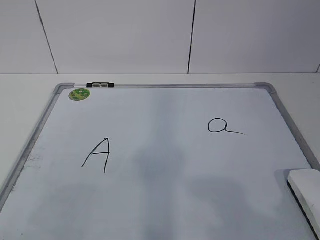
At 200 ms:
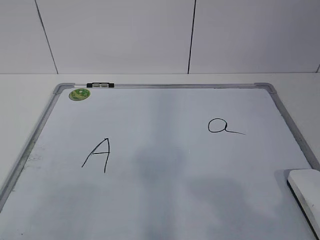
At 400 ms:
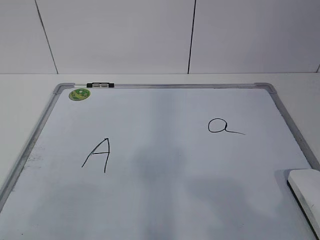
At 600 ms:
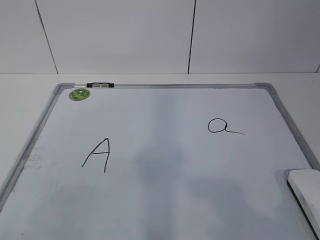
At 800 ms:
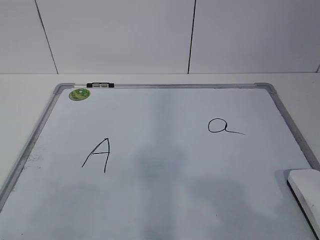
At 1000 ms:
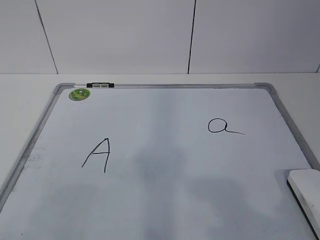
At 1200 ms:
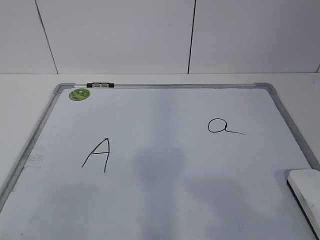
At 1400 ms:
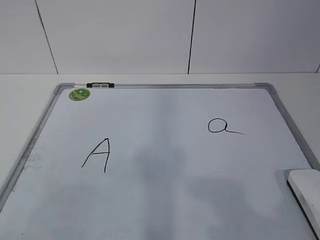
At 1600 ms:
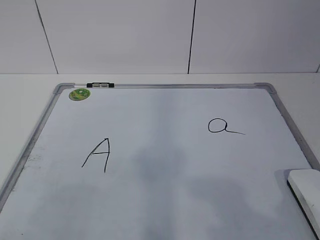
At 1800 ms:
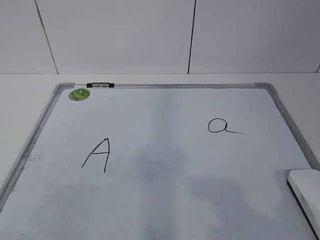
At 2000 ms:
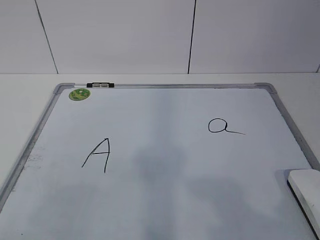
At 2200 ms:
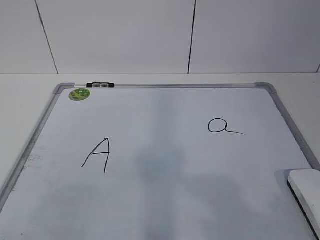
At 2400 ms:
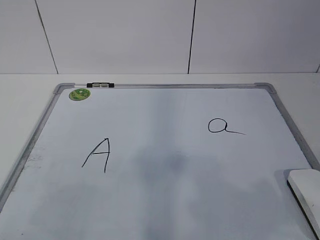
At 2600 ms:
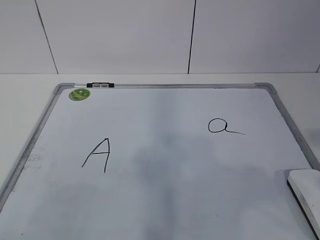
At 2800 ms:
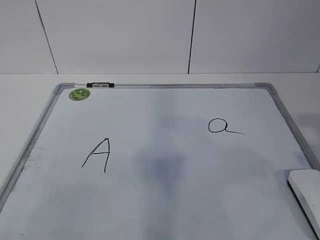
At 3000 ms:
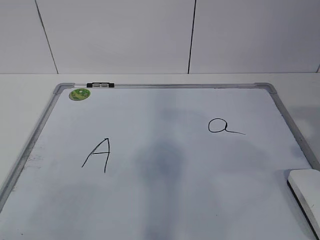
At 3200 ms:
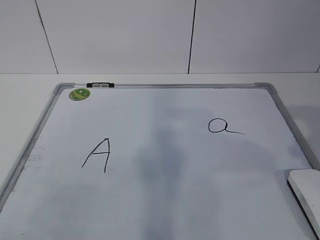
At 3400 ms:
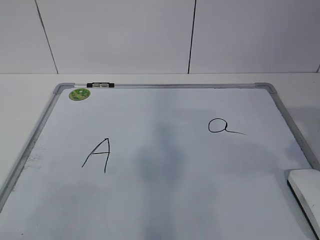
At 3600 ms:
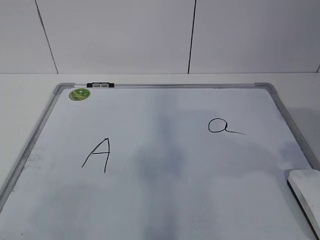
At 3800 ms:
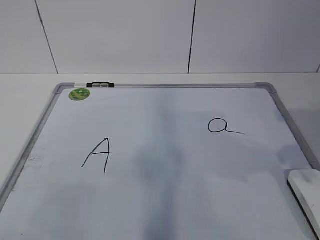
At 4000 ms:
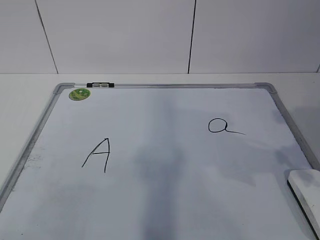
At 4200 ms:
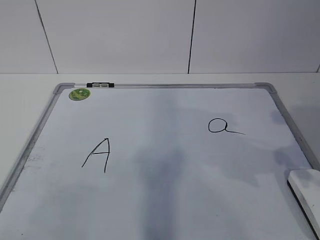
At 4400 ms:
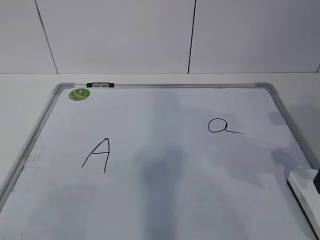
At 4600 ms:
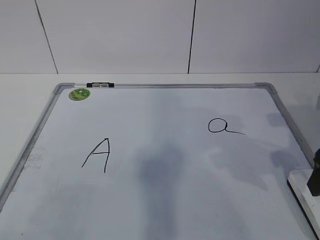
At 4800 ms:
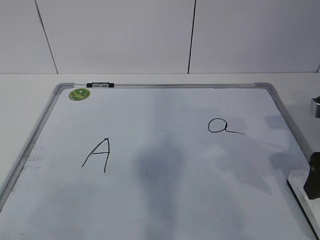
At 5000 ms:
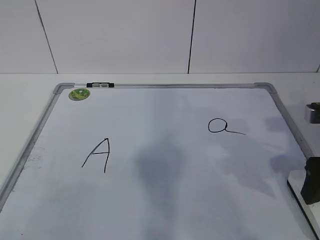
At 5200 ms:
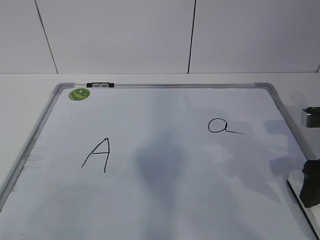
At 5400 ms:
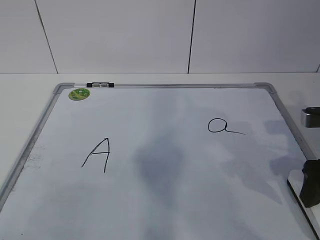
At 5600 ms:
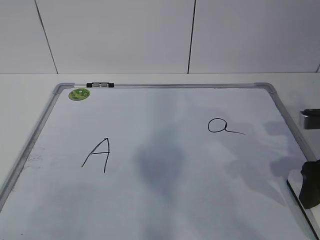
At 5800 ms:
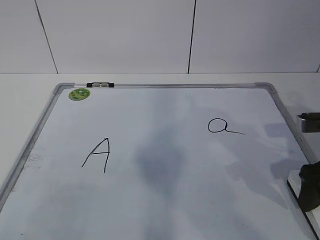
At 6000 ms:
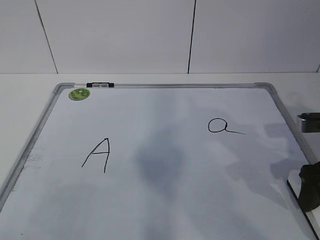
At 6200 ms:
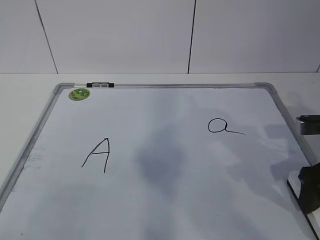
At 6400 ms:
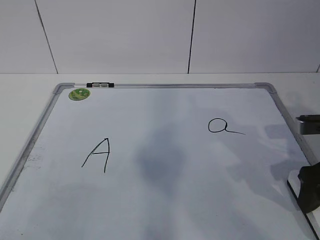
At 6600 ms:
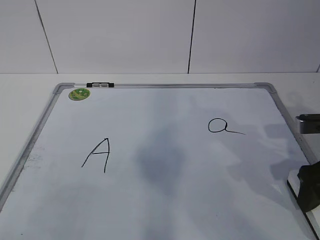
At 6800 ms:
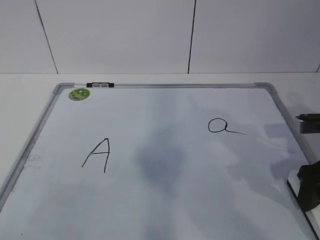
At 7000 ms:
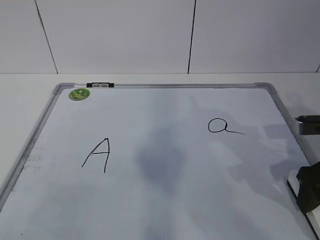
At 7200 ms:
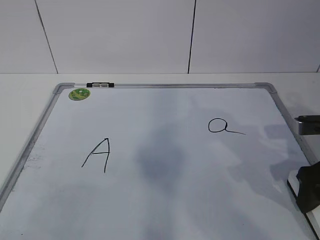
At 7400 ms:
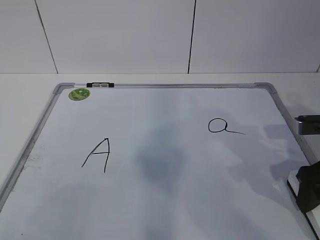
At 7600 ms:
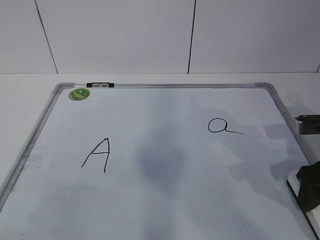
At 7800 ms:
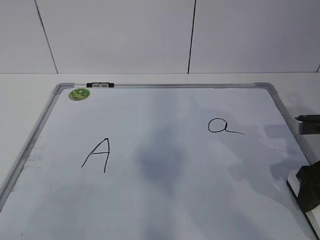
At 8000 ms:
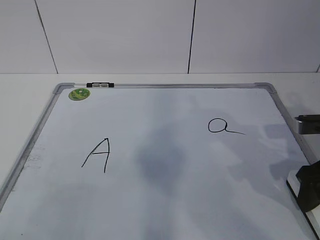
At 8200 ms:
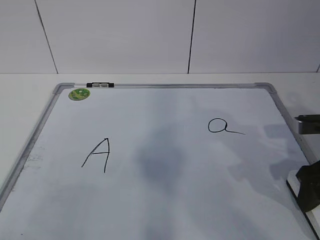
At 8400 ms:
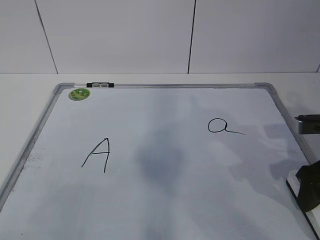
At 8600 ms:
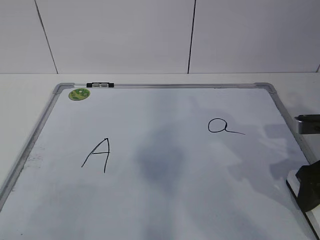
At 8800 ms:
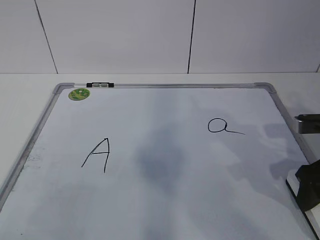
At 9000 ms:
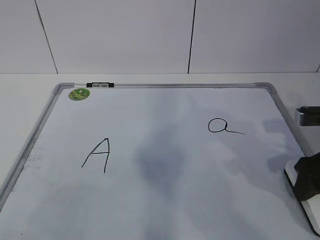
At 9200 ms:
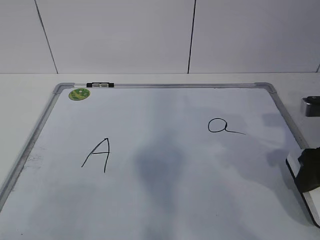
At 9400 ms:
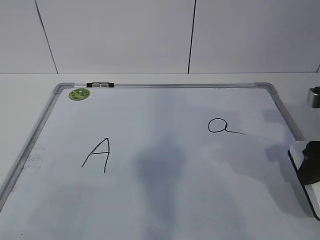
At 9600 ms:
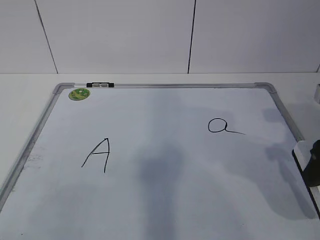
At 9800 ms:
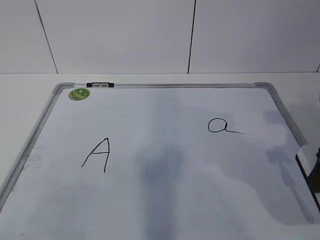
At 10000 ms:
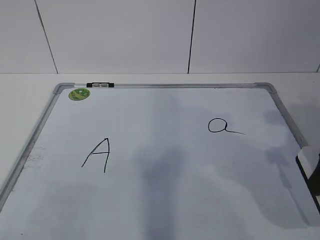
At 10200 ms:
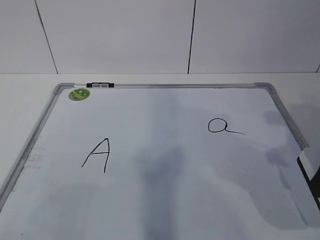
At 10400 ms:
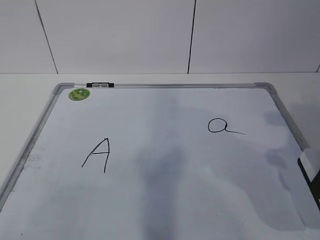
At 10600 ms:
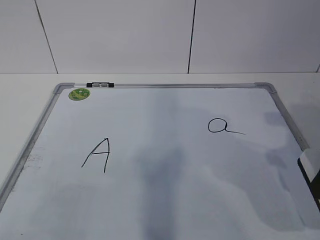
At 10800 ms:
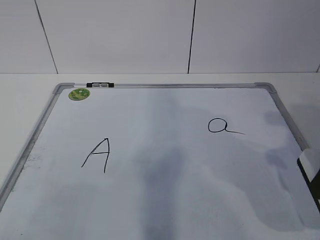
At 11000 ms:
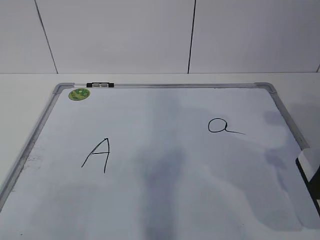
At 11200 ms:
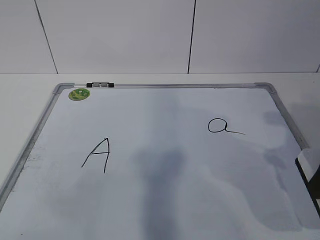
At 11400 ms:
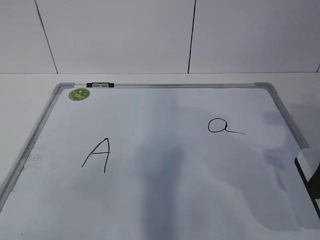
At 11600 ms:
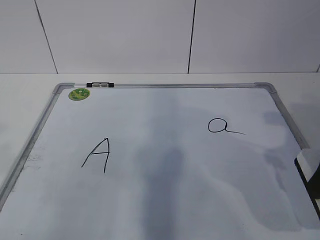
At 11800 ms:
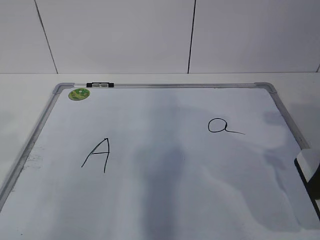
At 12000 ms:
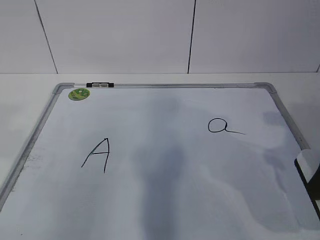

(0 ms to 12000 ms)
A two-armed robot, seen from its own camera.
Task of the whole recording: pick up the eraser on the blackboard and erase the letter "a".
3000 ms - 4400 ms: The right gripper shifts approximately 15 cm forward and downward.
4400 ms - 6000 ms: The right gripper heads downward, covering approximately 5 cm.
6000 ms - 7600 ms: Both grippers stay put.
7600 ms - 9000 ms: The grippers stay close to where they were, moving slightly.
9000 ms - 10400 ms: The right gripper shifts roughly 5 cm upward.

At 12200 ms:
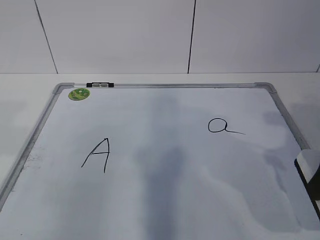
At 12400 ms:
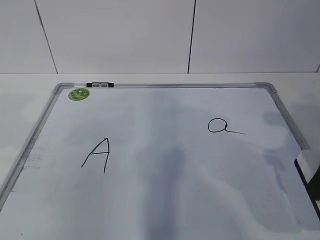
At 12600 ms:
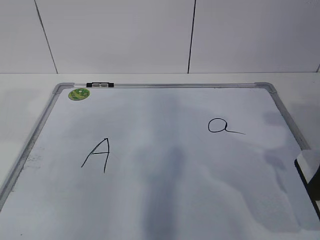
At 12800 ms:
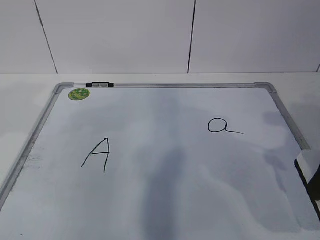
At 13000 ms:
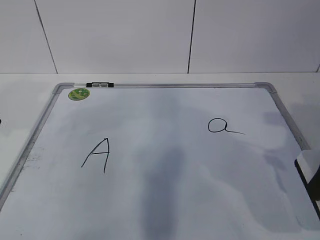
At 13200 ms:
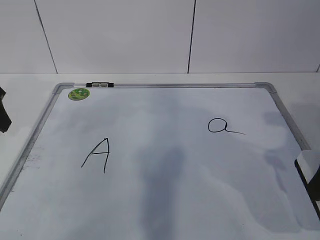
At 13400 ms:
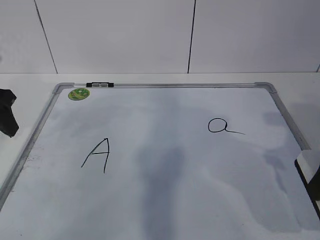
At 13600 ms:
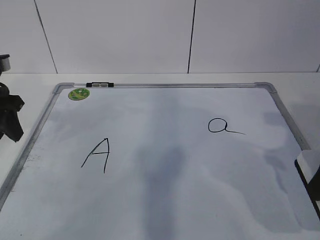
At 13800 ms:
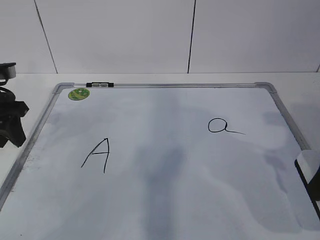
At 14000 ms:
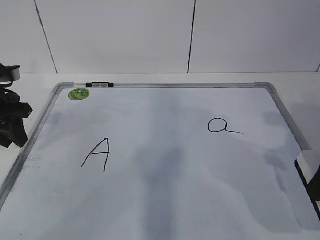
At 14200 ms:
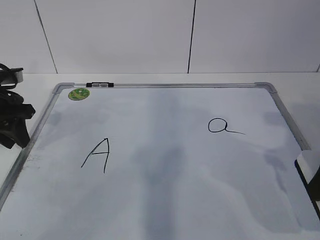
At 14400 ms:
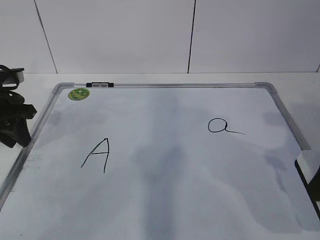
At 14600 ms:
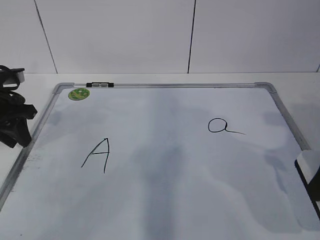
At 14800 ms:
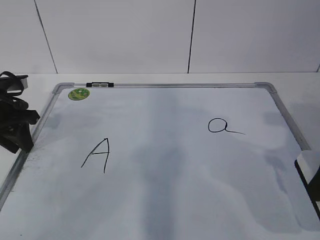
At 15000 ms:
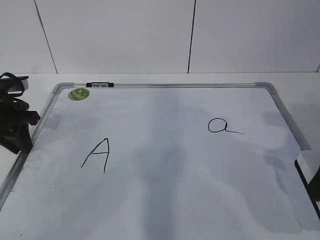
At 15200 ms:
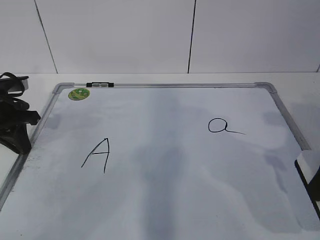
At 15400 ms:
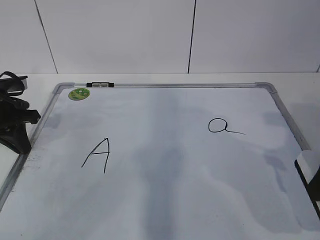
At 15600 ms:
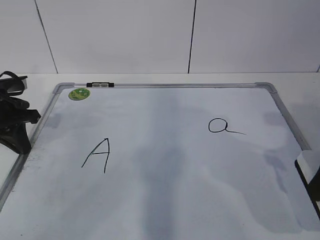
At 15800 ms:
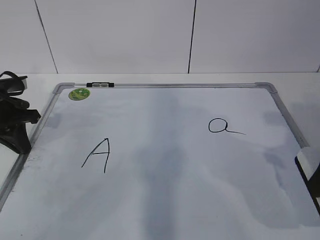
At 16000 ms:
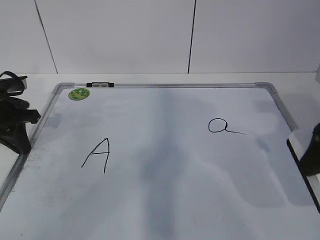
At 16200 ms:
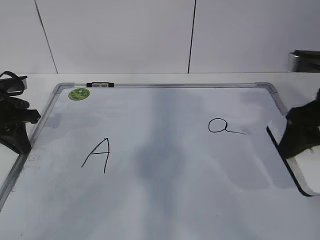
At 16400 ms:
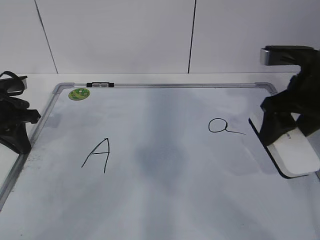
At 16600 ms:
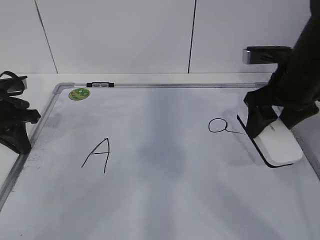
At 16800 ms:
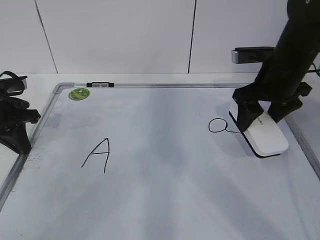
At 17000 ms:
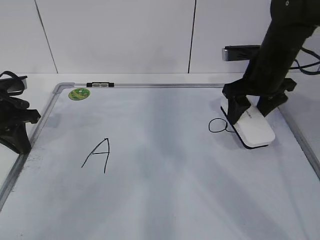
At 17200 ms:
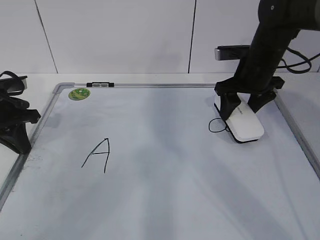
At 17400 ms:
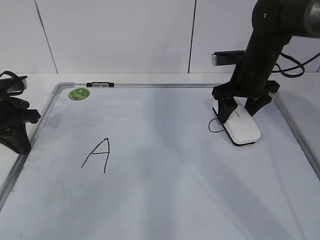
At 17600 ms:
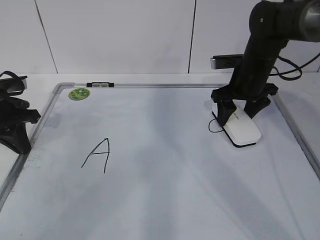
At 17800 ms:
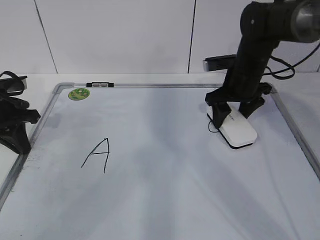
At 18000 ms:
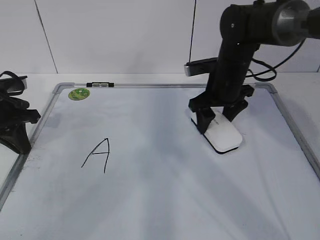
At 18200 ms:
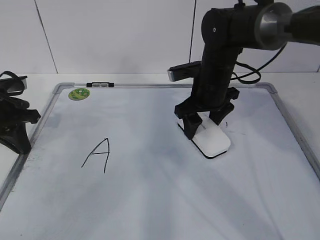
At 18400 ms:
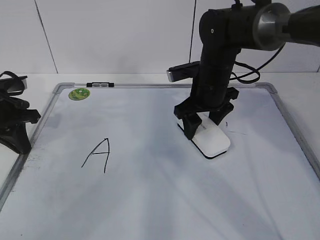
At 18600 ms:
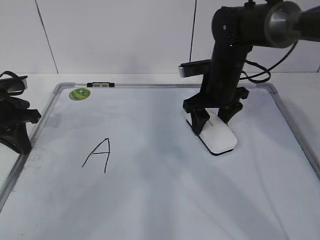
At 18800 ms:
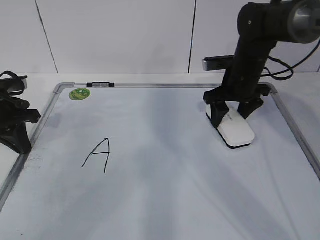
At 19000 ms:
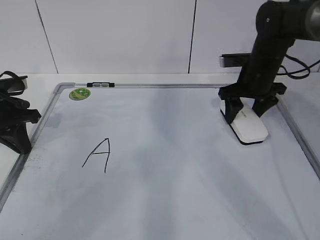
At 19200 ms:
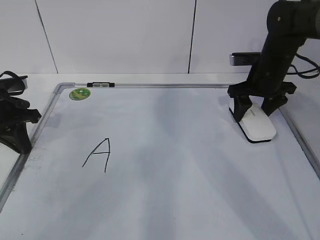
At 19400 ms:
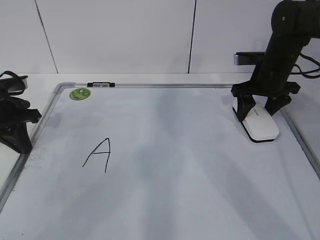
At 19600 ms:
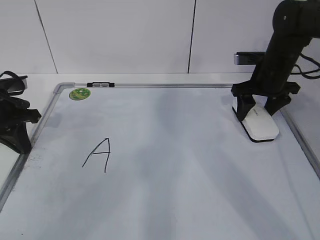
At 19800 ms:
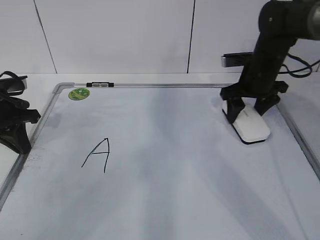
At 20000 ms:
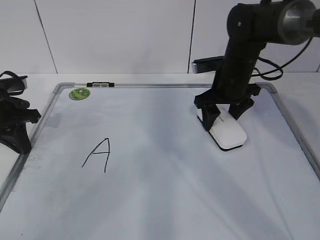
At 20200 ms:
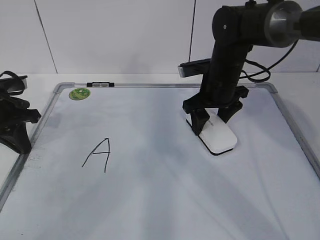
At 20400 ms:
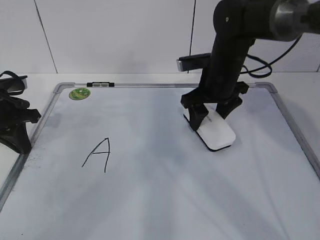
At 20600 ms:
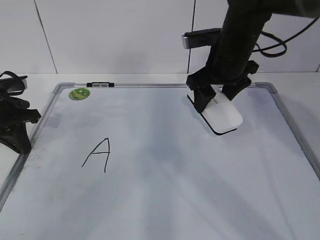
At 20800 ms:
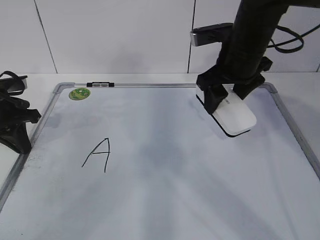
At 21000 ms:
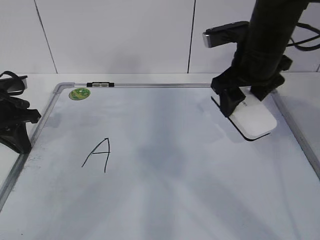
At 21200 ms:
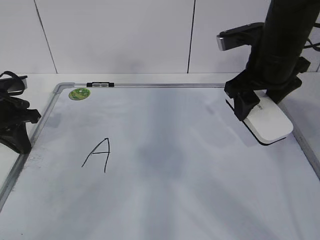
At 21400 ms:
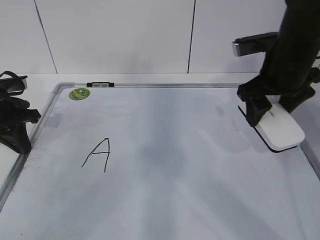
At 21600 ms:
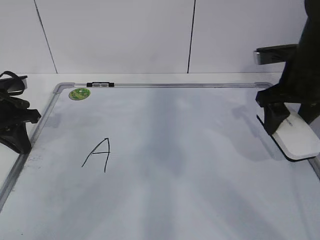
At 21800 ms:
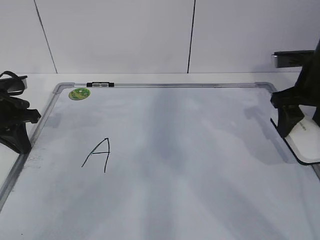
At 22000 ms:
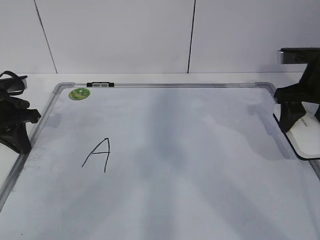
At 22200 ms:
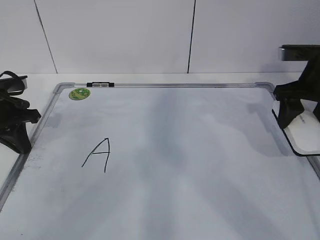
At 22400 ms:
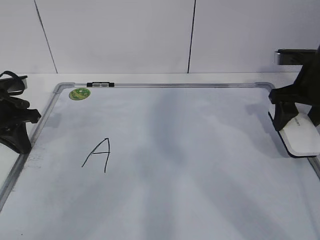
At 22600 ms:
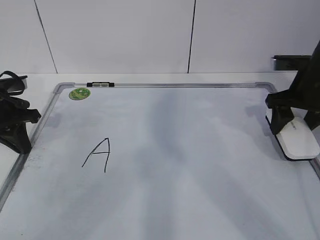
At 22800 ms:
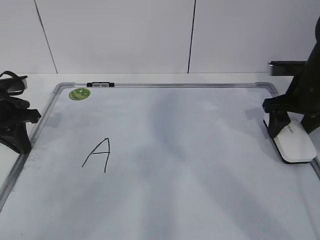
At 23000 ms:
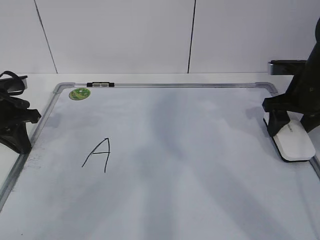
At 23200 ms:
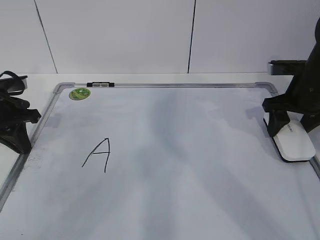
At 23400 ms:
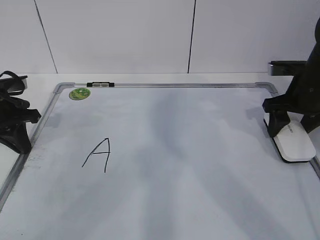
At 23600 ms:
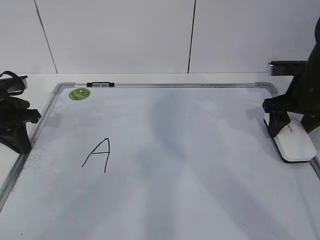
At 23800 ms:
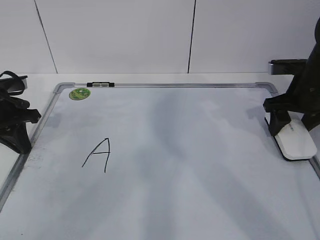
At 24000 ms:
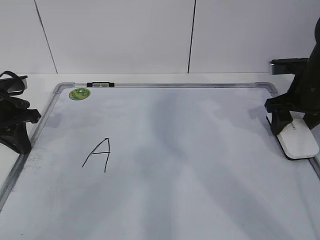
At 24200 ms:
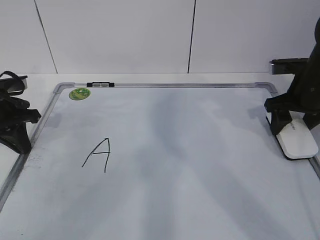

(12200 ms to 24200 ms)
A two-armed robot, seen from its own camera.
Task of the whole recording: pick up the eraser on the blackboard and erase the letter "a".
Step, 12800 ms - 16600 ms: Erase the letter a with your right hand.
Step, 16800 ms - 20600 ms: Put down the eraser with your right hand.
12200 ms - 13800 ms: The left gripper travels forward and downward by about 20 cm, and closes its fingers.
13800 ms - 15200 ms: The left gripper closes up.
15200 ms - 16600 ms: The right gripper is displaced forward by about 15 cm.
16600 ms - 18200 ms: The right gripper is displaced to the left, forward and downward by approximately 15 cm.
18200 ms - 19800 ms: The right gripper is displaced to the right by about 10 cm.
19800 ms - 21200 ms: The right gripper heads backward and upward, covering some 15 cm.
21200 ms - 22600 ms: The right gripper goes roughly 10 cm to the right and downward.
22600 ms - 24200 ms: The grippers move only a little.
